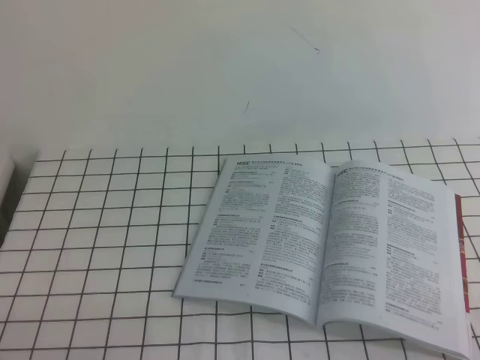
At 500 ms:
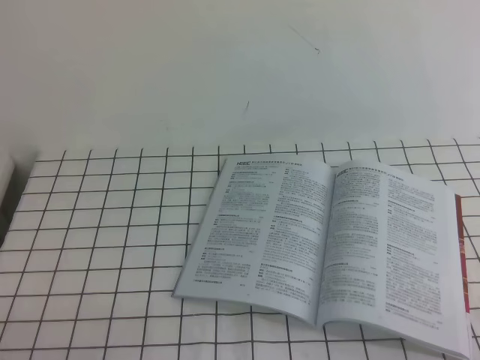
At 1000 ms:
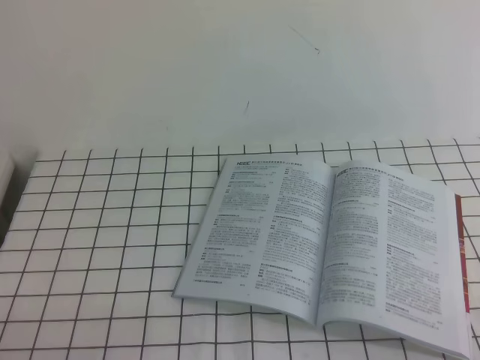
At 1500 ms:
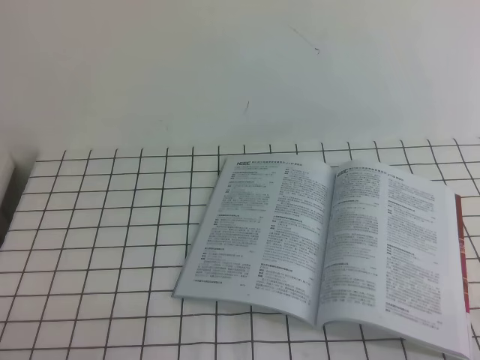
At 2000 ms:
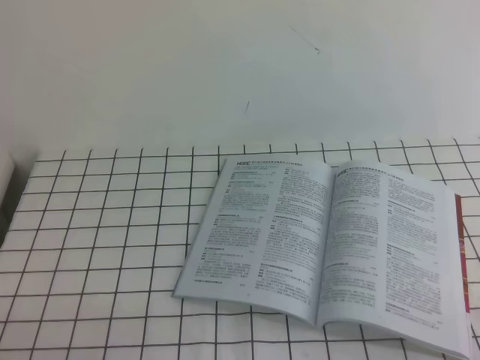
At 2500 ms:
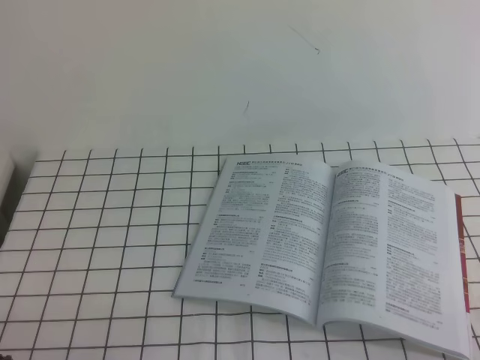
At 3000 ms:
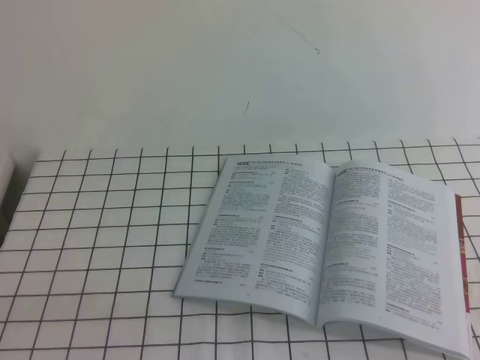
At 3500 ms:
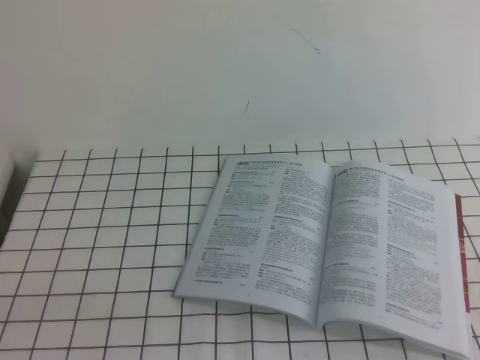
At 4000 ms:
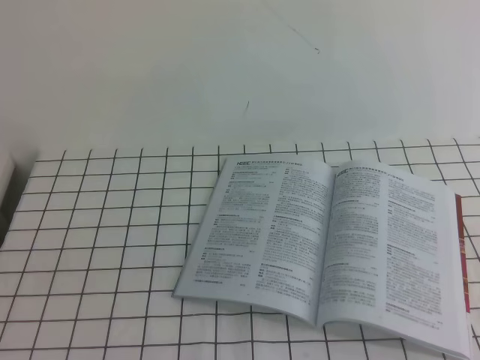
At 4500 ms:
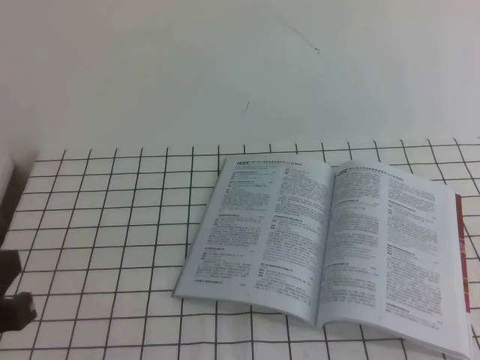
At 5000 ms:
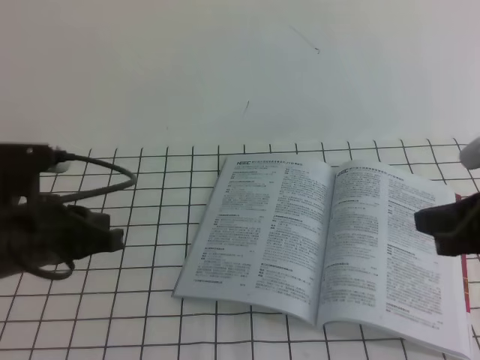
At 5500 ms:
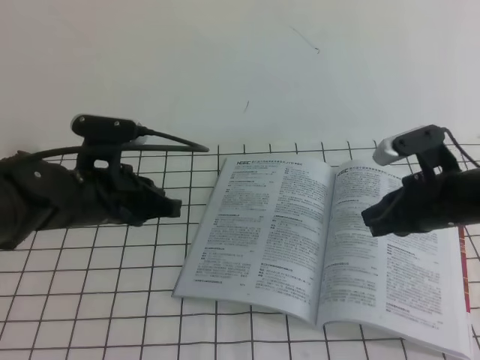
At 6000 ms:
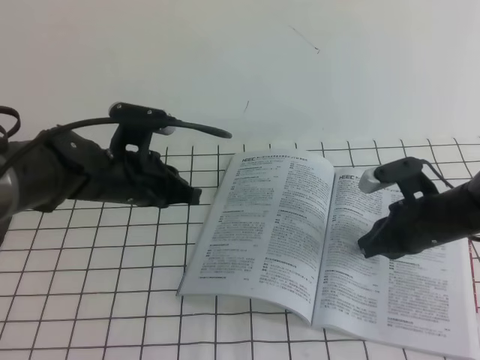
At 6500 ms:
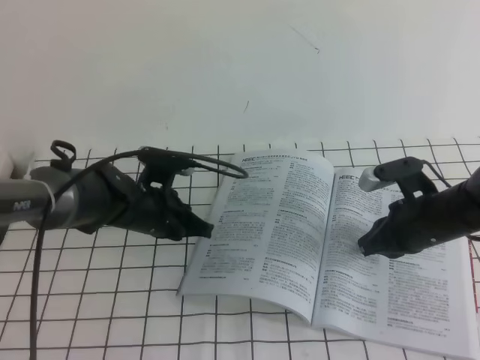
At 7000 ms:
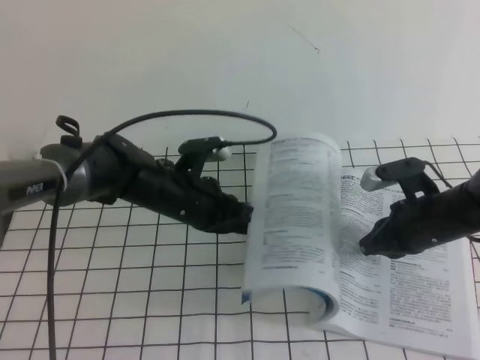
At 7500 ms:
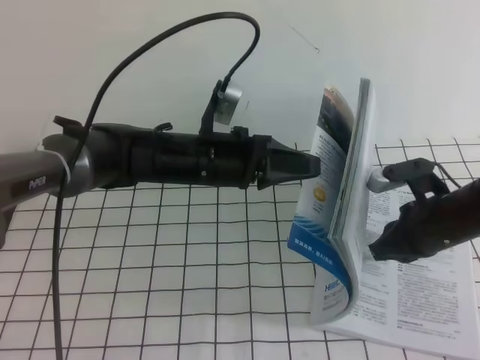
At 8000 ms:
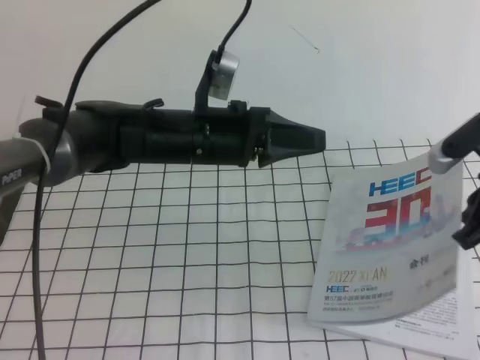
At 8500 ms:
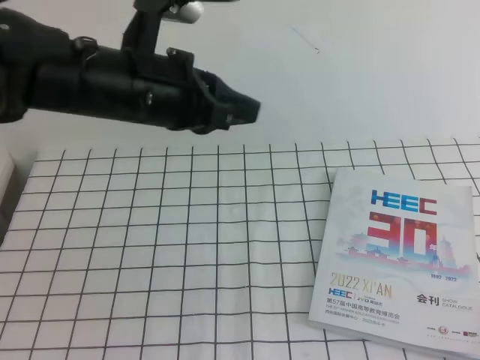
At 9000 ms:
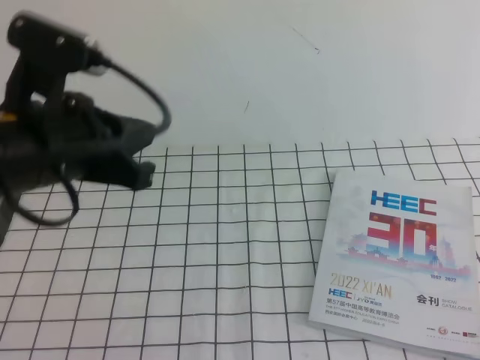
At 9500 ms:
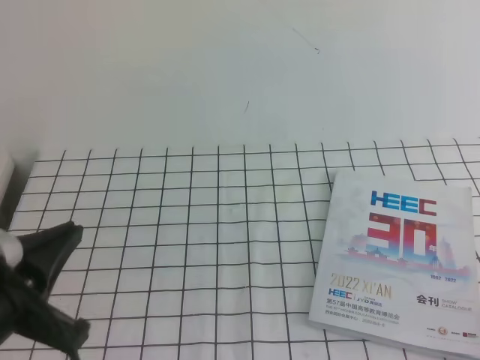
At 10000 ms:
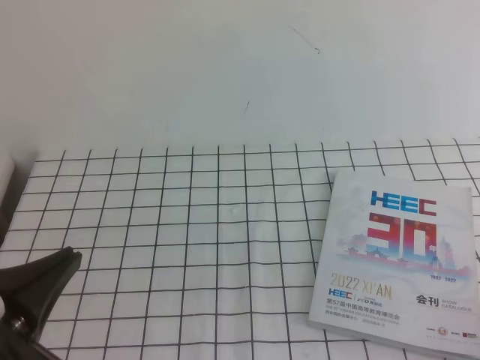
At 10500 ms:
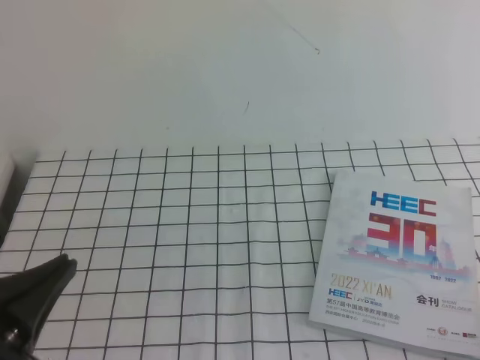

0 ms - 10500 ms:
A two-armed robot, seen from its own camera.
Task of the whole recording: on the white tablecloth, hold the book with one hand and close it with the other.
0 ms - 2000 ms: Neither gripper changes place.
4000 ms - 6500 ms: The grippers both shift forward and downward by approximately 35 cm.
6500 ms - 8500 ms: The right gripper heads upward and backward, covering some 25 cm. Meanwhile the left gripper moves upward, approximately 20 cm.
8500 ms - 10500 ms: The left gripper heads backward and to the left, covering some 25 cm. The right gripper shifts roughly 20 cm backward and downward.
